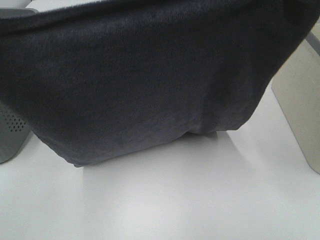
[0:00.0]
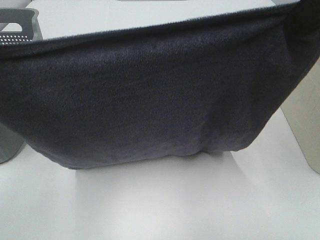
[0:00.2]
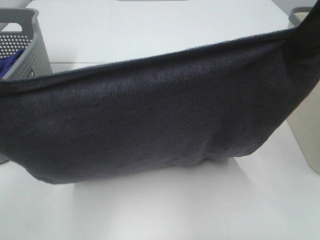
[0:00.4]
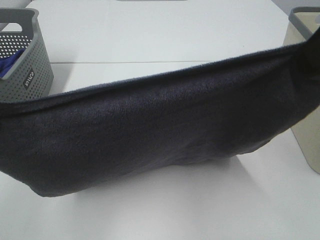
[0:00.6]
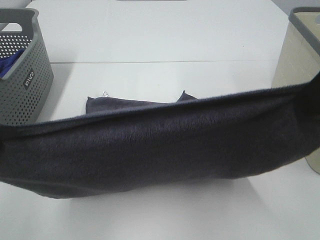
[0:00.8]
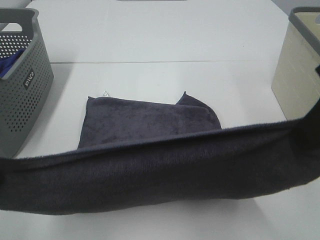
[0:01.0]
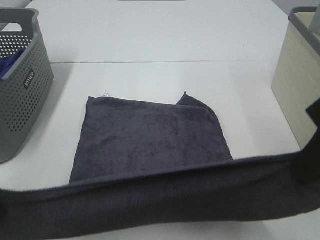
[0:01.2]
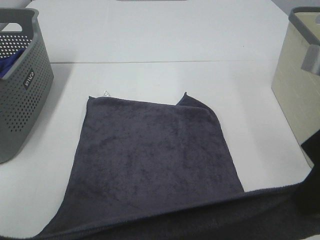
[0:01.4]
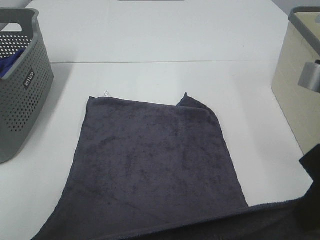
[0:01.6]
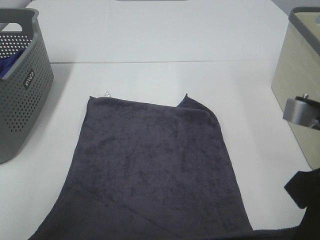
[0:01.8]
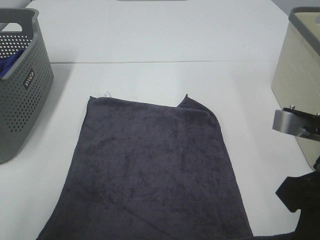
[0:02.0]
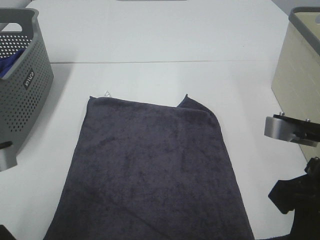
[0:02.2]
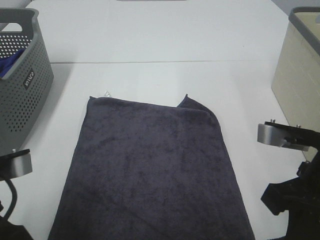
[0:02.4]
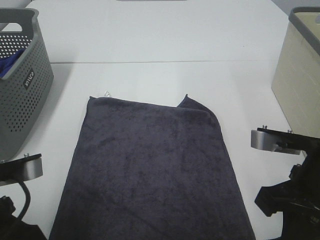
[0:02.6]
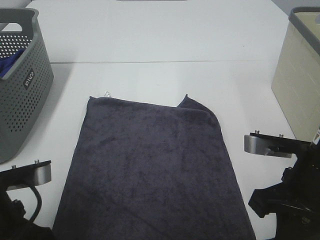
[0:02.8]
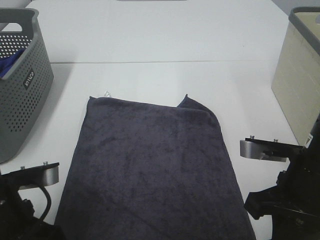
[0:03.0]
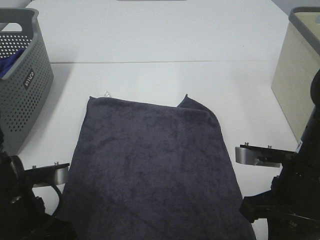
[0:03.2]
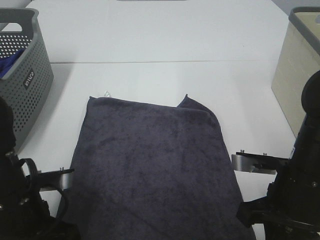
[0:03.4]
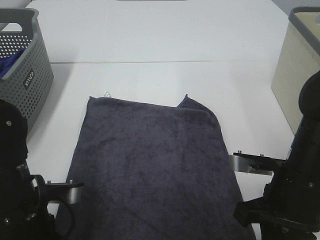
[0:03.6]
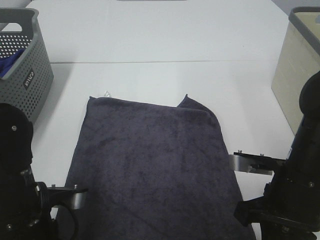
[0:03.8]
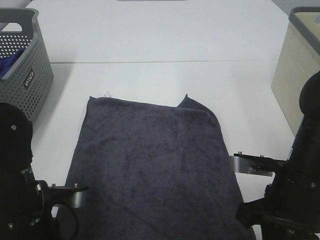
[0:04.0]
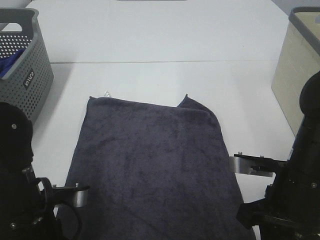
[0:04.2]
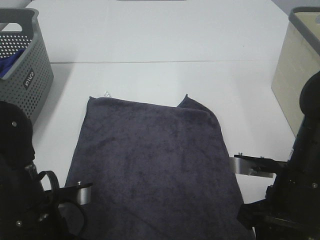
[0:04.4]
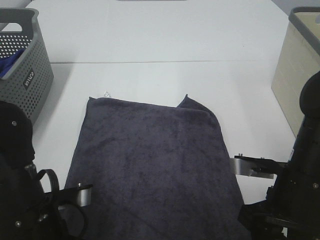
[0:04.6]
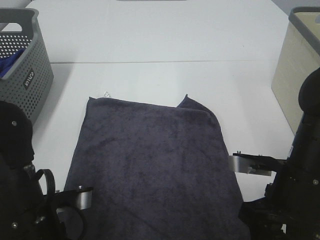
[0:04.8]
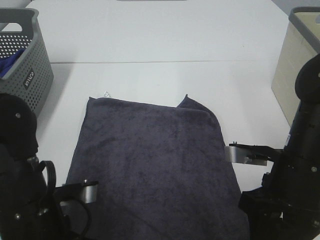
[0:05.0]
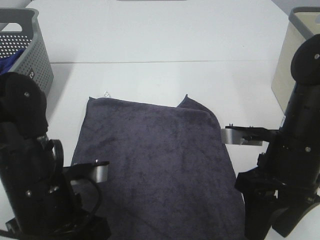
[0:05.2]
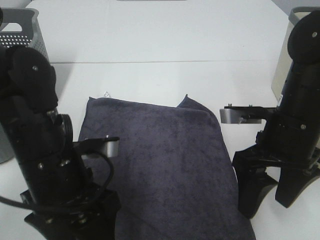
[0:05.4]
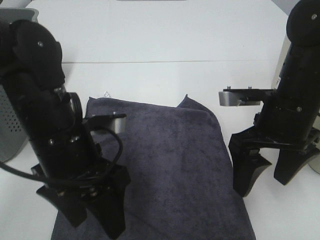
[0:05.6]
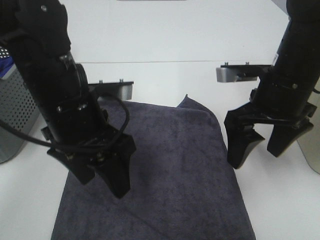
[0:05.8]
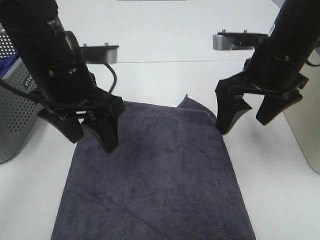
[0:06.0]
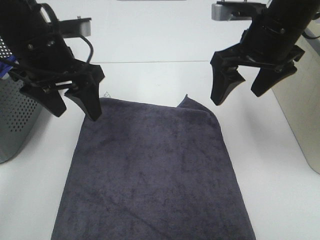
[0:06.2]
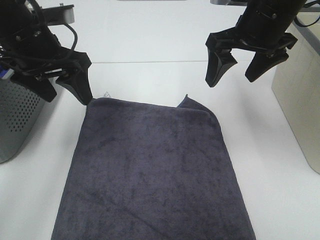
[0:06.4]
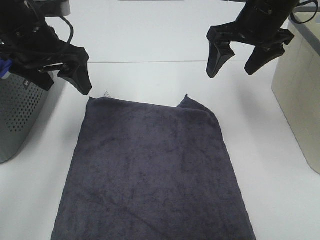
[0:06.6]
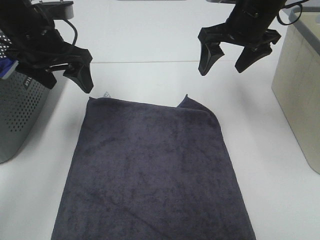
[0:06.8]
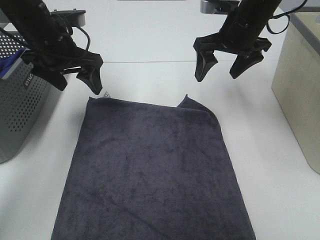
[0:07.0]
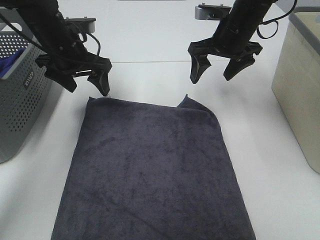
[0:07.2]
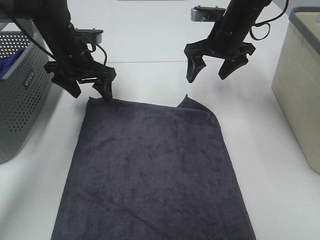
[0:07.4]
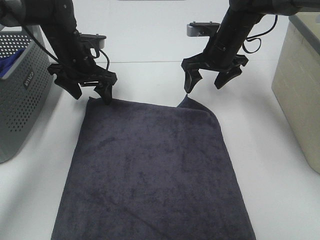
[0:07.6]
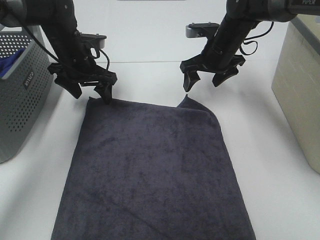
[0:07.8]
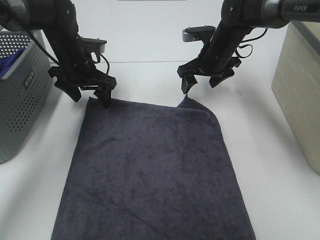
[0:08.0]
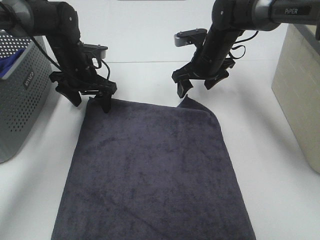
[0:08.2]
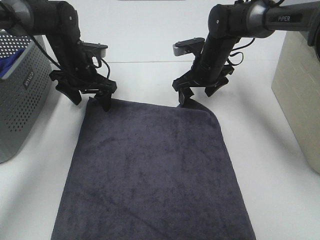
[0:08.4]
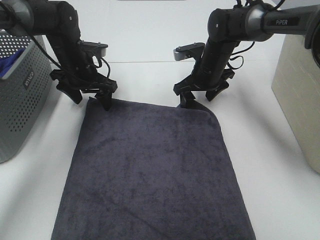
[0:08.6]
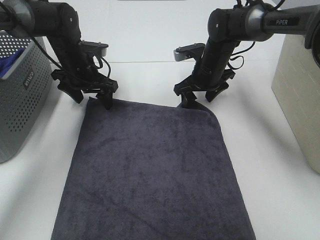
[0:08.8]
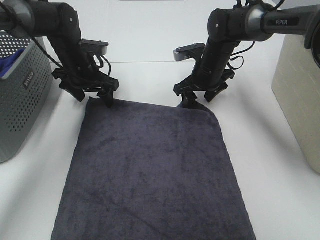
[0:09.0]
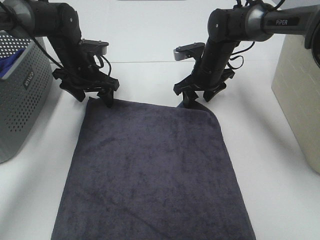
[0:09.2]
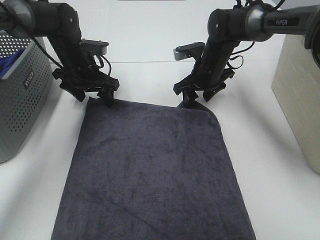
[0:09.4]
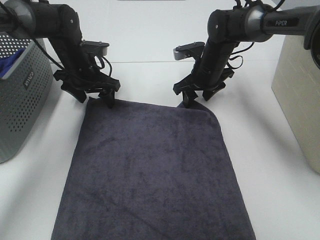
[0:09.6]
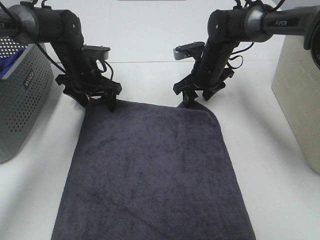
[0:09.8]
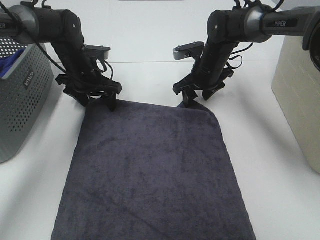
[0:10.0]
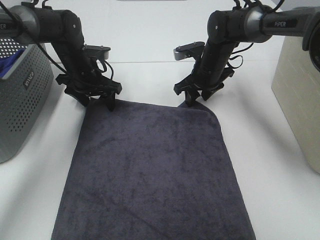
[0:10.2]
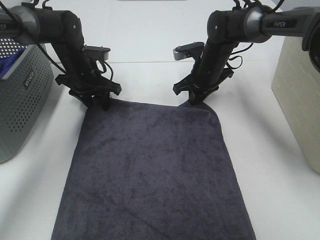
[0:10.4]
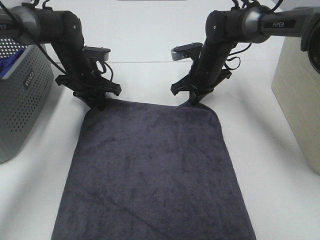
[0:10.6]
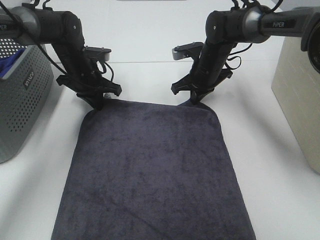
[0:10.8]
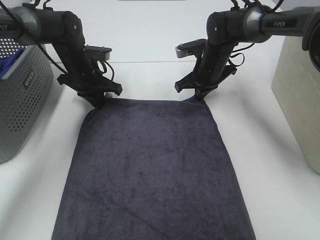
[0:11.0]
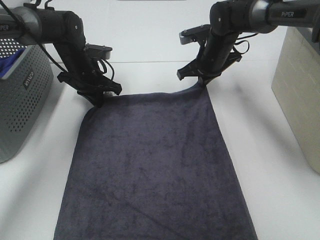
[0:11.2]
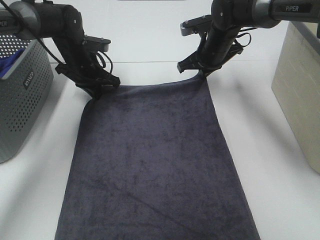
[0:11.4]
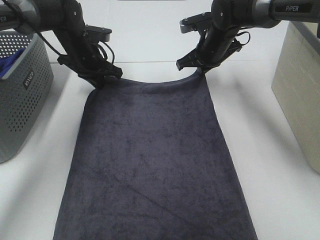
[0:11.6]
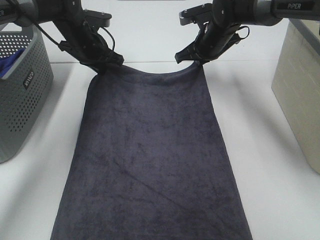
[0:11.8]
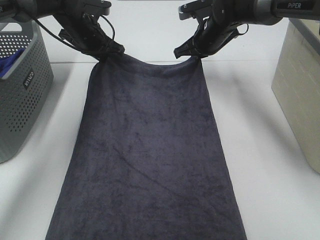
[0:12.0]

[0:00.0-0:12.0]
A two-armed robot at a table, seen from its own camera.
Task of the whole recording: Remove the towel and place it.
Step, 0:00.0 to 0:07.8: Left hand:adjust the gray towel.
Step, 0:00.0 to 0:07.8: Right hand:adjust the gray towel.
0:00.0 to 0:01.6: Both grippers move downward and backward, roughly 15 cm.
0:01.6 to 0:03.0: The right gripper is displaced downward by approximately 10 cm. The left gripper goes approximately 10 cm downward and forward.
0:03.0 to 0:04.4: The left gripper opens. The right gripper opens its fingers.
0:04.4 to 0:06.0: Both grippers travel together forward and upward, approximately 20 cm. The right gripper opens its fingers.
0:06.0 to 0:07.6: Both grippers travel together forward and downward, roughly 20 cm.
0:07.6 to 0:09.0: The right gripper heads downward, covering some 5 cm.
0:09.0 to 0:10.4: The right gripper closes its fingers.
0:10.4 to 0:12.0: The two grippers go roughly 5 cm upward. The left gripper closes up.

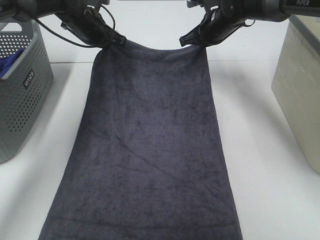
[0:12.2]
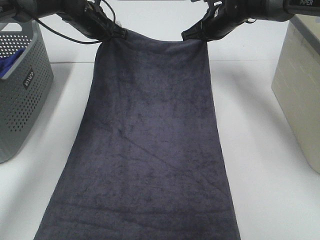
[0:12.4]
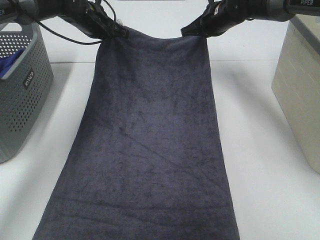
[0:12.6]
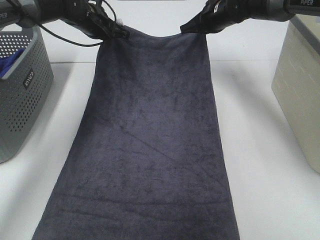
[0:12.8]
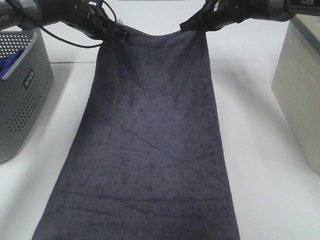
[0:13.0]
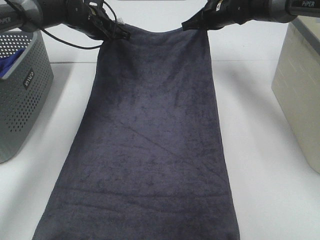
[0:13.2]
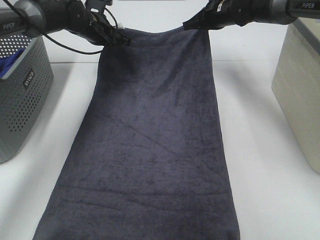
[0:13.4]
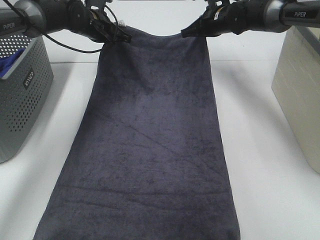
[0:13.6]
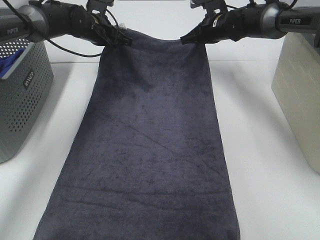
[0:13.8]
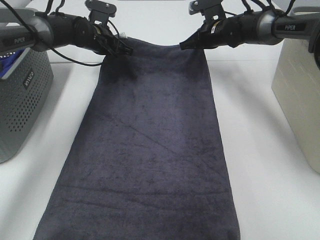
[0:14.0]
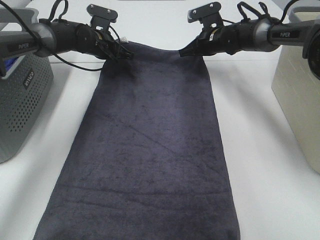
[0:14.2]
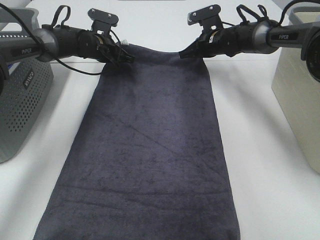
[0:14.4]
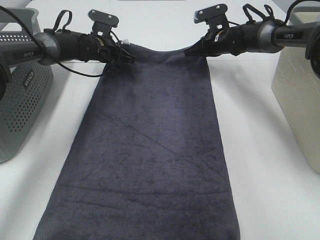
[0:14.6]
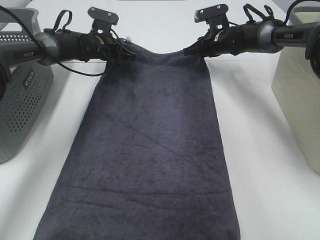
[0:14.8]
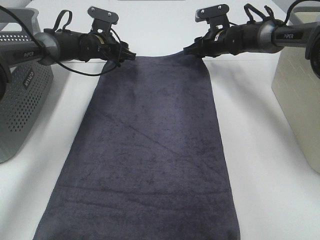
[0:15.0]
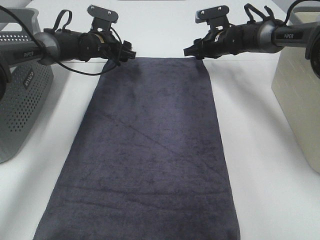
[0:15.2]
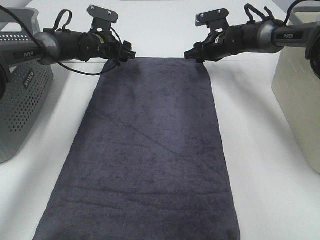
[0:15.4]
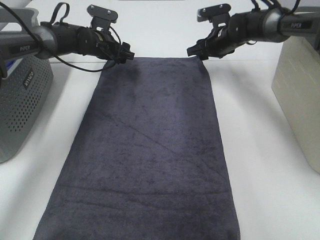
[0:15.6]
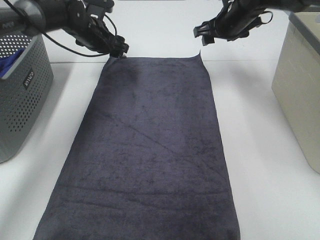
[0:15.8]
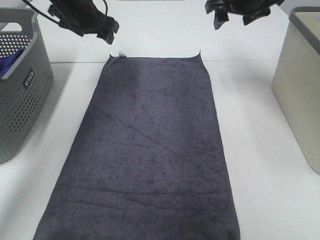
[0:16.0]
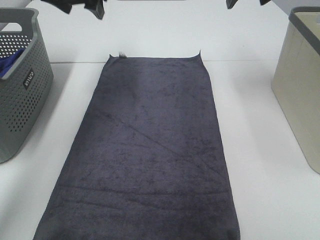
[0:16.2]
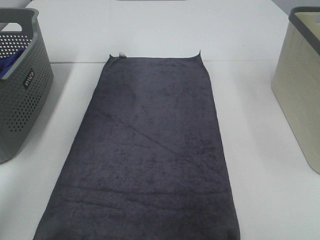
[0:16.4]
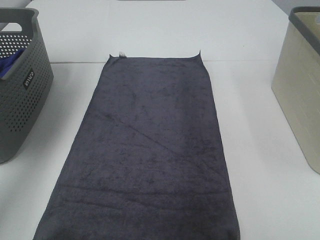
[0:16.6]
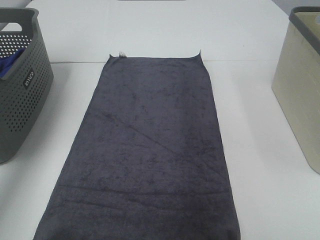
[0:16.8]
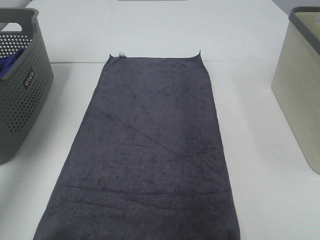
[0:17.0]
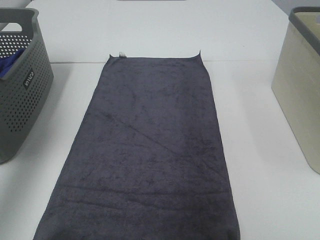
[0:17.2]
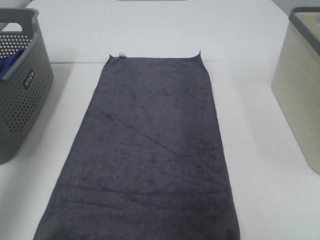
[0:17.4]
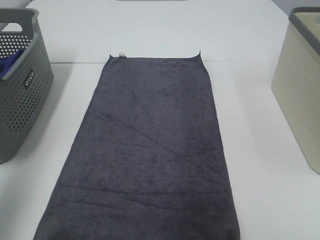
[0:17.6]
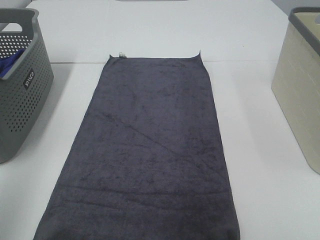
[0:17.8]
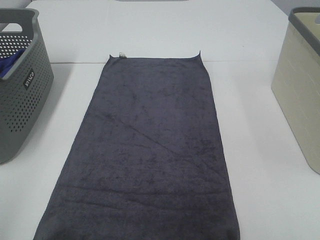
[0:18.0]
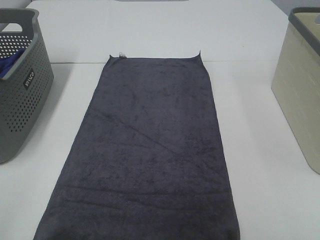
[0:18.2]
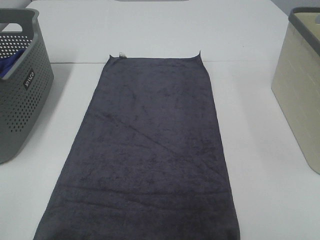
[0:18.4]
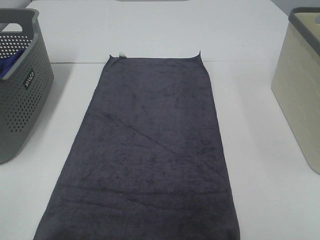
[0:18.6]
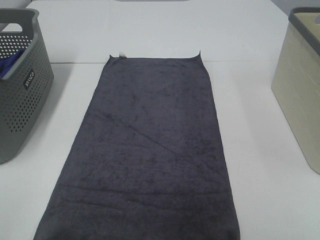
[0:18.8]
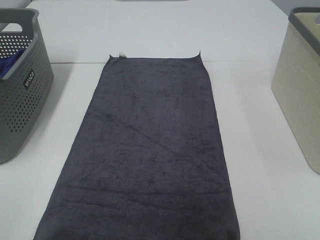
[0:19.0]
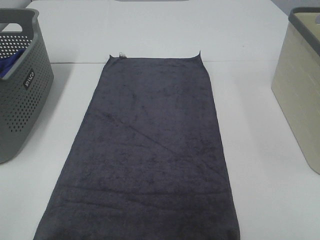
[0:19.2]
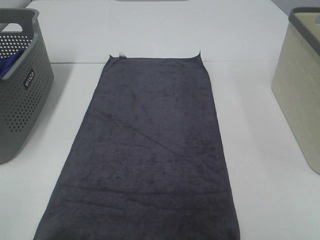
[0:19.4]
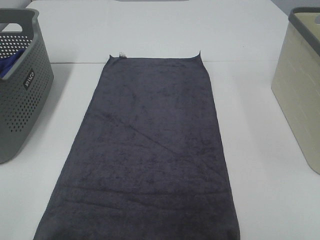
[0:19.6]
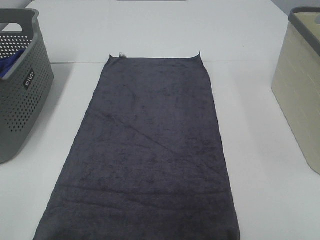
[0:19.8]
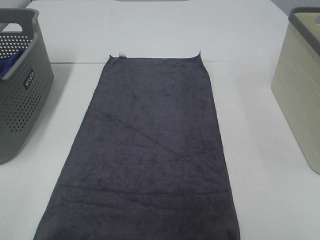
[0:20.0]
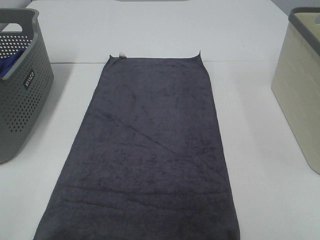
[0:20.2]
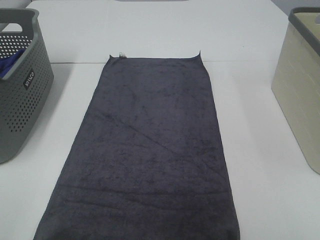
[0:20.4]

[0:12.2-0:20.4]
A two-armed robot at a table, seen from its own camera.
Task of the whole recording: Remove the towel and place it.
0:12.2 to 0:13.8: There are only small adjustments of the grippers.
0:13.8 to 0:15.4: The left gripper opens its fingers. Meanwhile the right gripper opens its fingers.
0:15.4 to 0:17.2: The right gripper heads upward and backward, covering about 40 cm, while the left gripper goes approximately 50 cm upward, backward and to the left.
0:17.2 to 0:18.8: The left gripper goes roughly 35 cm backward and downward.
0:18.8 to 0:20.4: The two grippers keep their place.

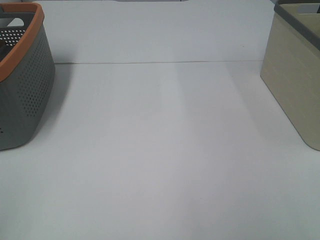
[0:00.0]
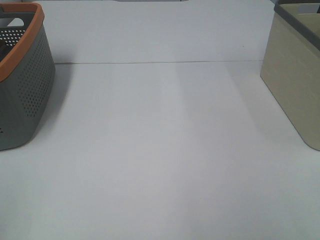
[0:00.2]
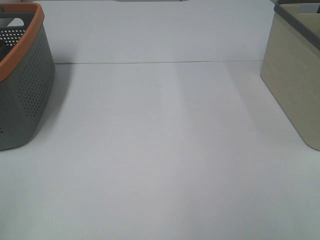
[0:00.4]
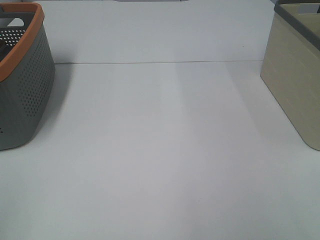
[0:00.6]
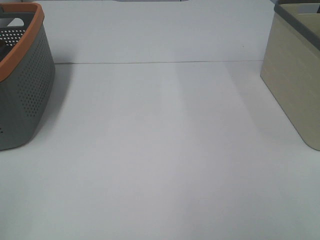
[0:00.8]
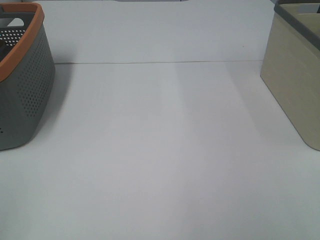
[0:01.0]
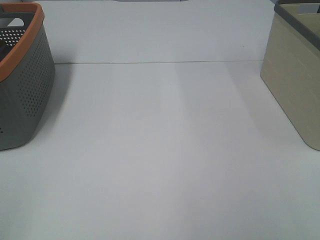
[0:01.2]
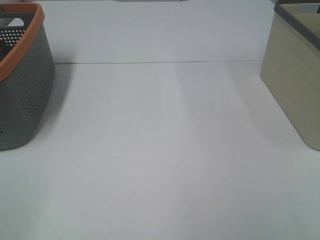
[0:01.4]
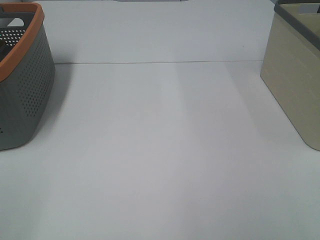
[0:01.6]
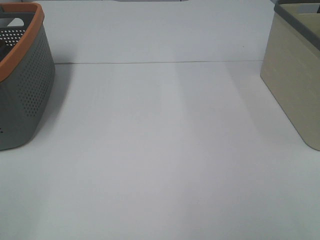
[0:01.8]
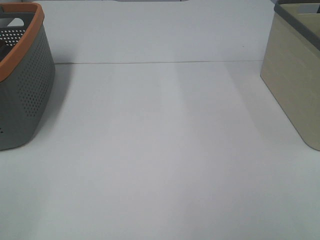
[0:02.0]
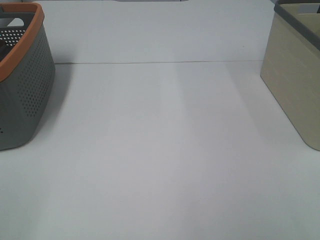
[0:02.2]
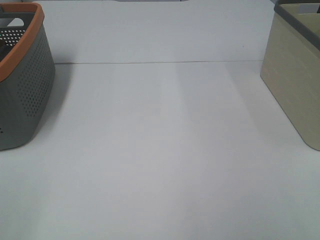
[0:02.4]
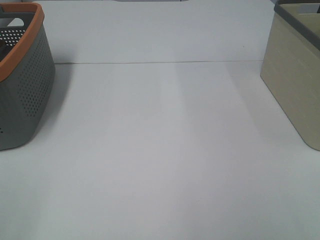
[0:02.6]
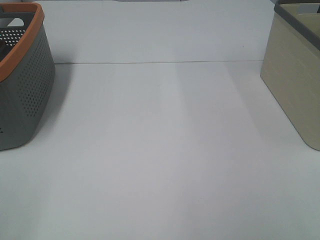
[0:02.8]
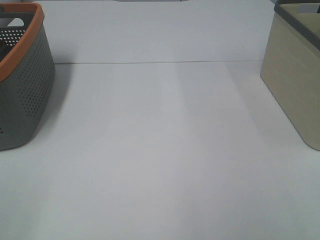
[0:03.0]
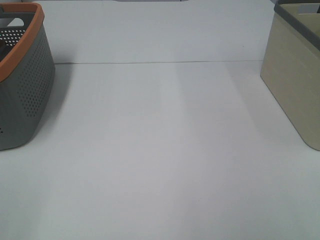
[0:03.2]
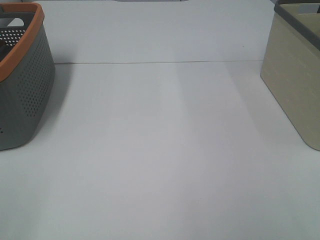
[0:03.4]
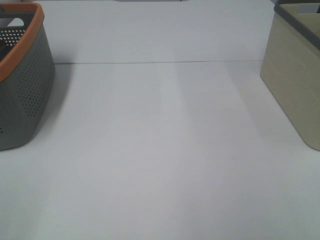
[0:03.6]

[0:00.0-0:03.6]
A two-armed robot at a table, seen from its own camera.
Task of the whole recording: Remove the towel and place it.
0:01.8 to 0:03.6: The two grippers keep their place.
